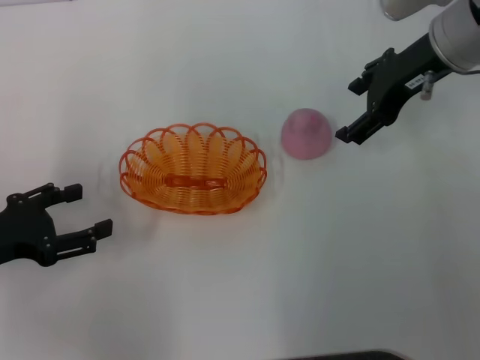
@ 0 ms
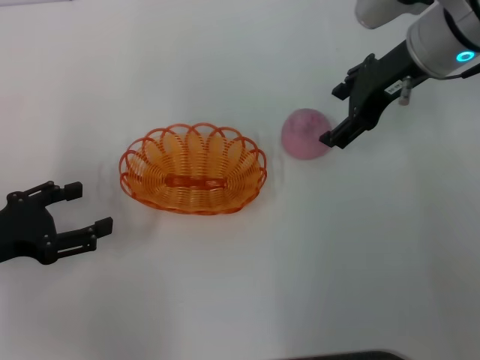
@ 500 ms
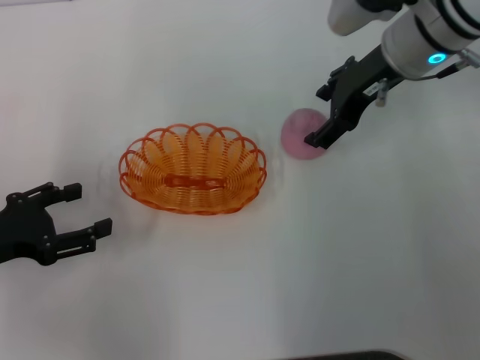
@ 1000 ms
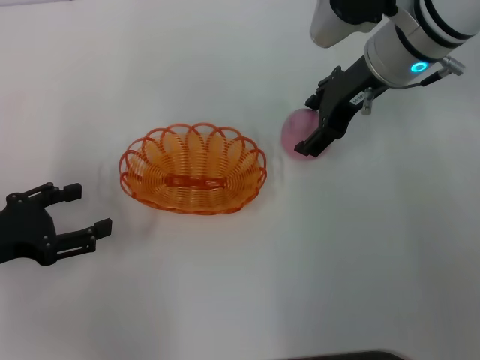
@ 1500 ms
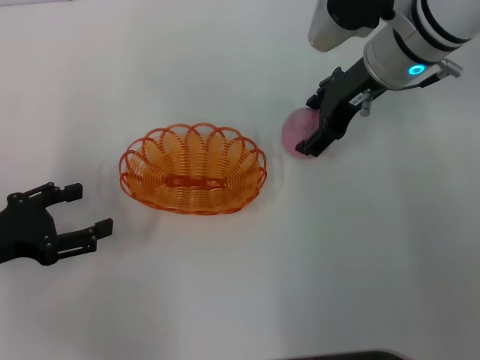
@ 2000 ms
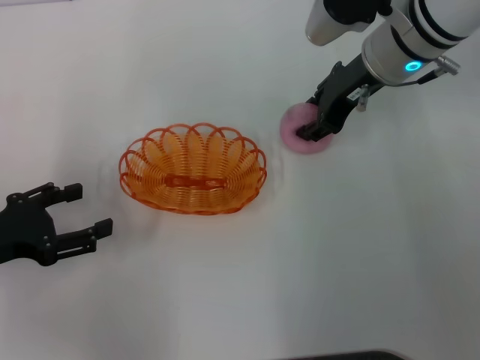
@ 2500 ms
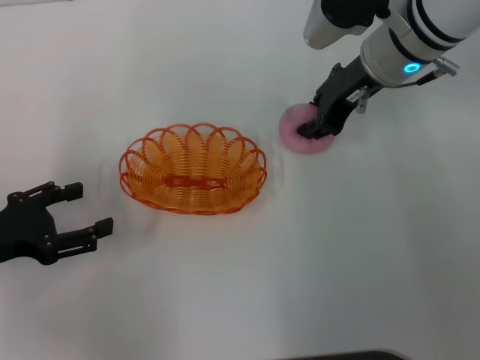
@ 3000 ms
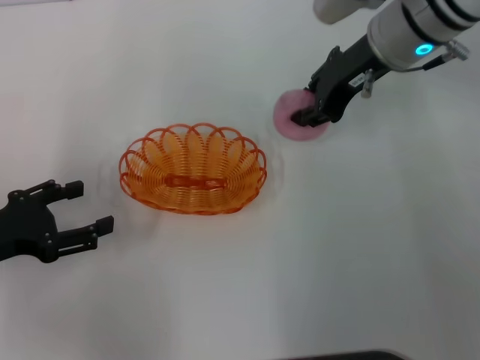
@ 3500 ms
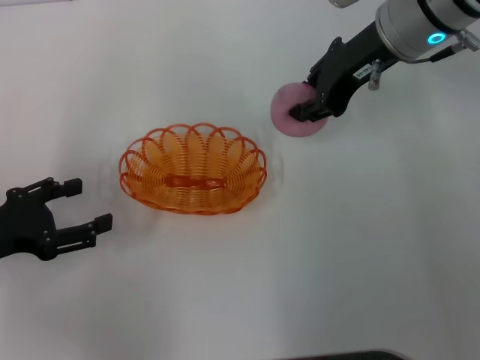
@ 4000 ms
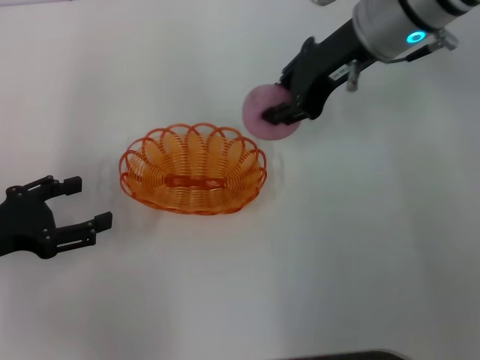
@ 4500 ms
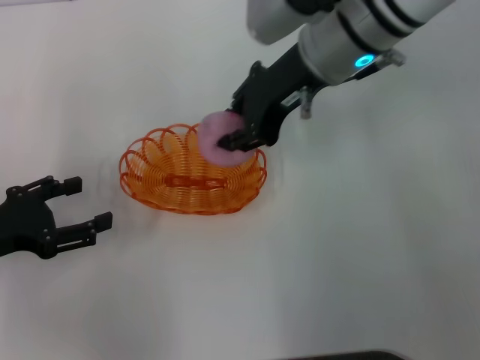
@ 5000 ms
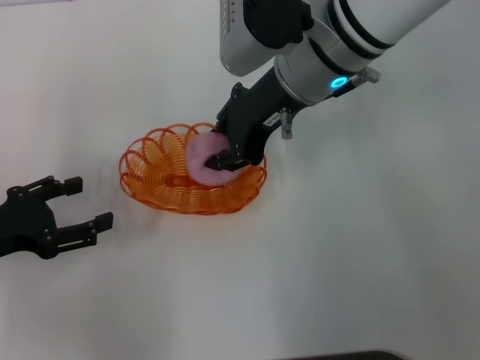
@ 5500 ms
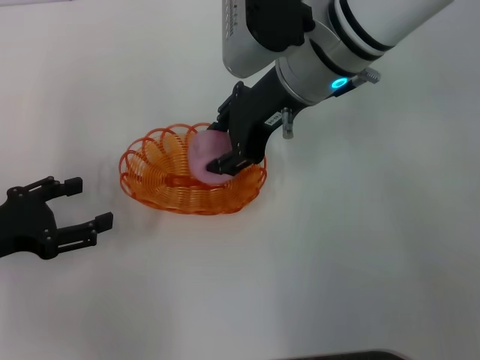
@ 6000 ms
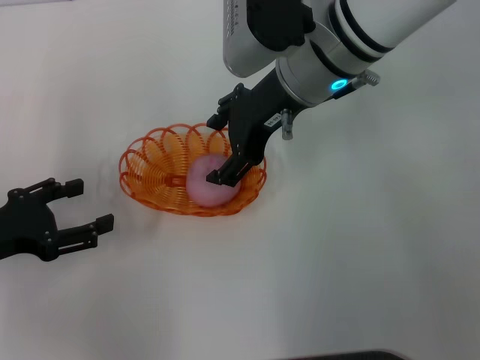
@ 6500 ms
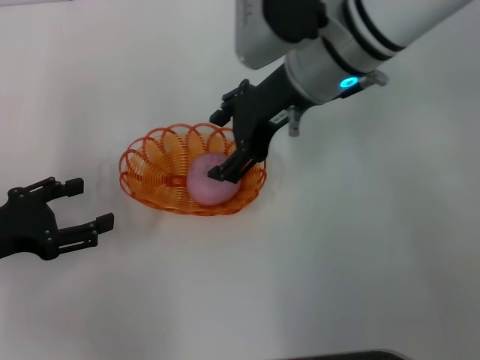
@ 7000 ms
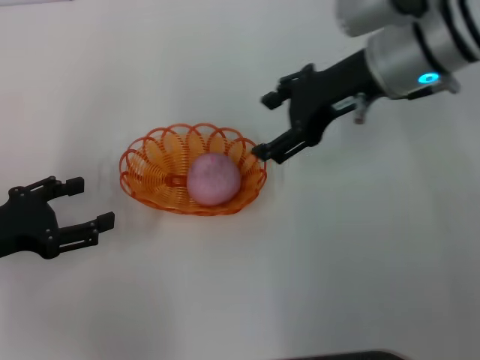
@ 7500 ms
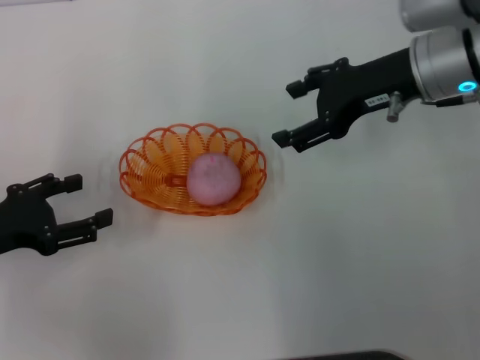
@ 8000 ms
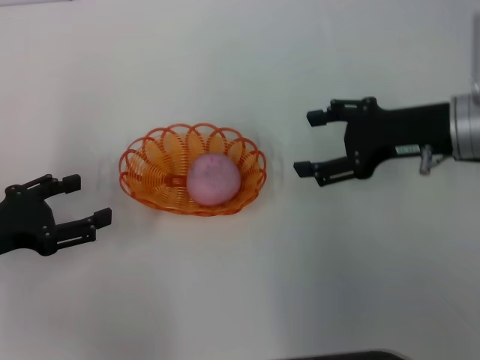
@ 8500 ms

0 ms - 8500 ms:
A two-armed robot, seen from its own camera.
Step, 0 ms - 4000 ms: Pick up the peach with the right gripper.
Step, 4500 ms - 7000 ms: Place the peach into the basket with the right gripper.
0 ms - 2000 ms: The right gripper moves some 5 cm.
2000 ms - 4000 ms: The right gripper closes.
4000 ms - 6500 ms: The right gripper moves to the left, about 10 cm, and opens.
6500 ms - 8500 ms: The right gripper travels to the right by approximately 15 cm.
